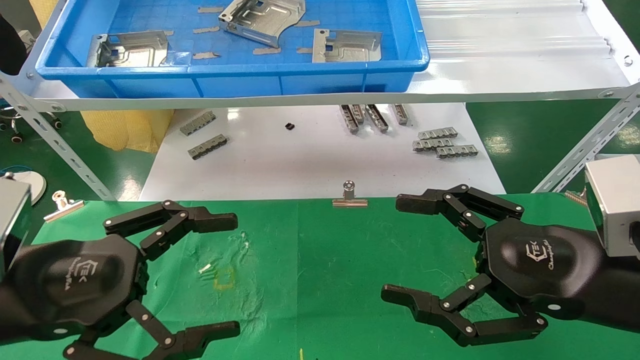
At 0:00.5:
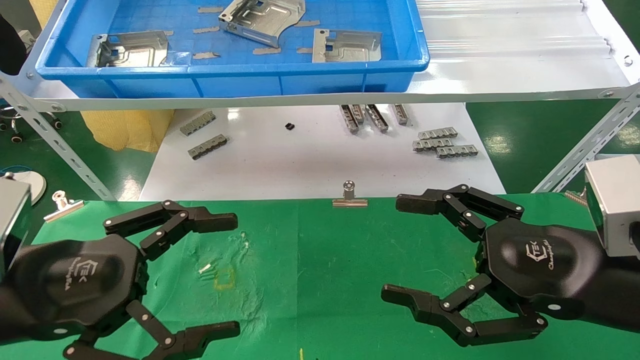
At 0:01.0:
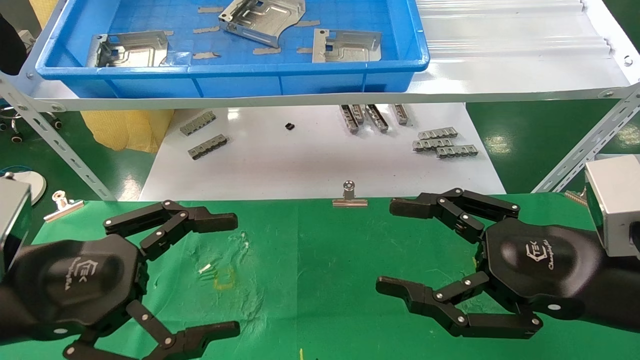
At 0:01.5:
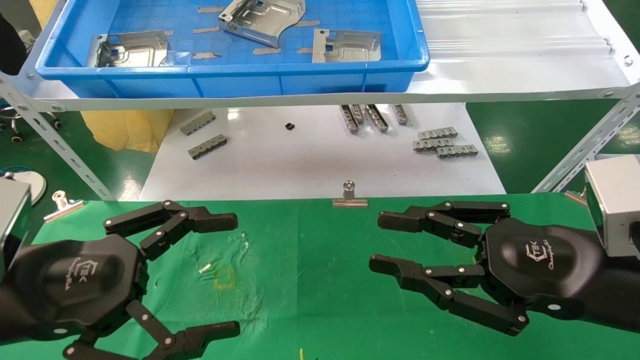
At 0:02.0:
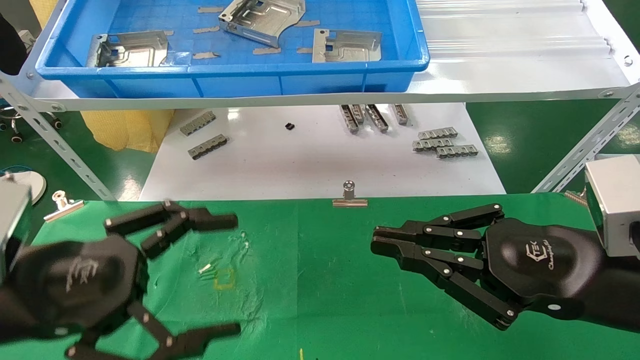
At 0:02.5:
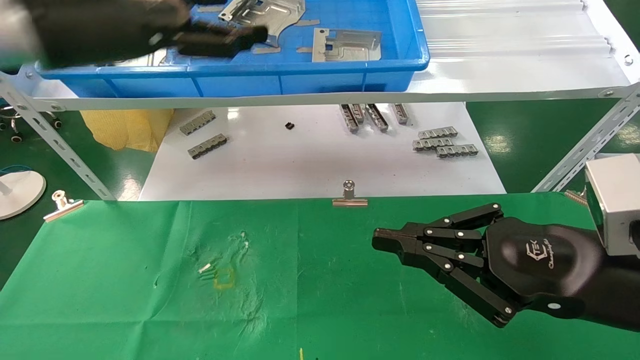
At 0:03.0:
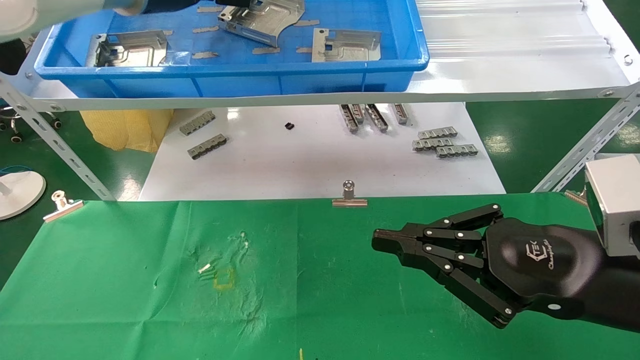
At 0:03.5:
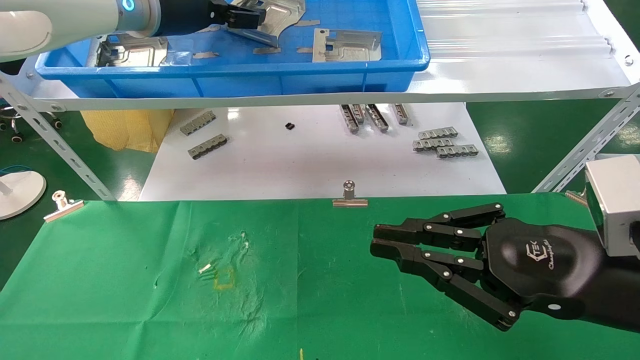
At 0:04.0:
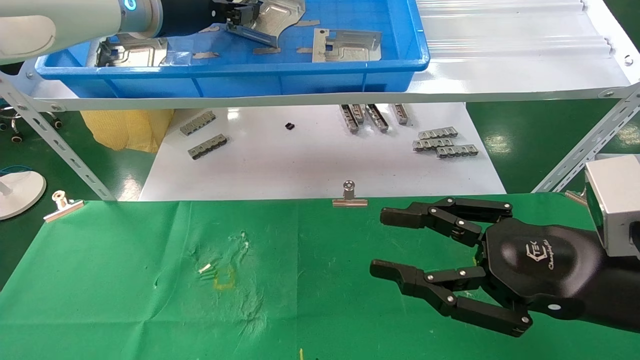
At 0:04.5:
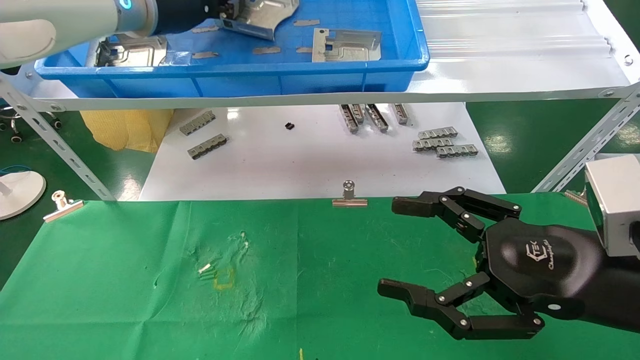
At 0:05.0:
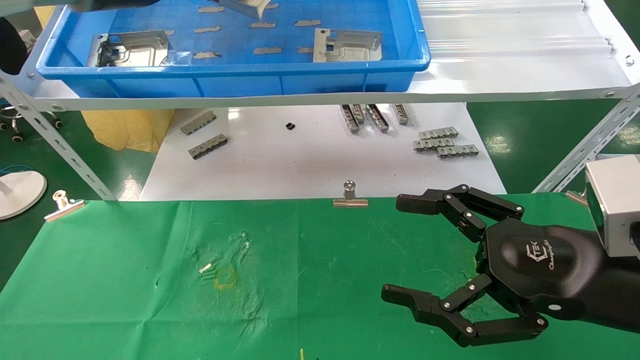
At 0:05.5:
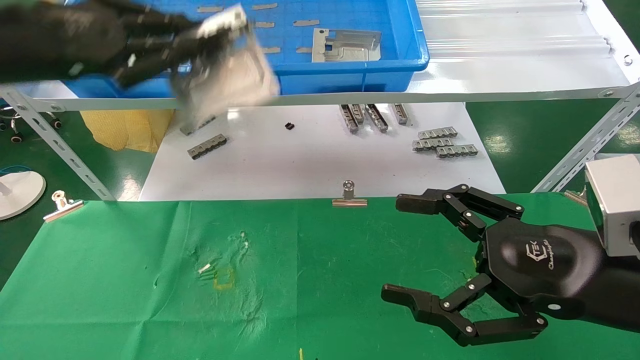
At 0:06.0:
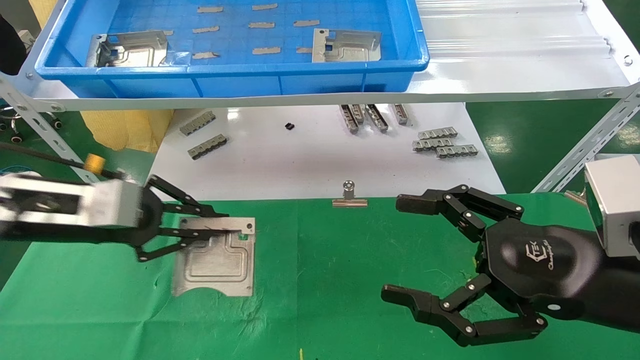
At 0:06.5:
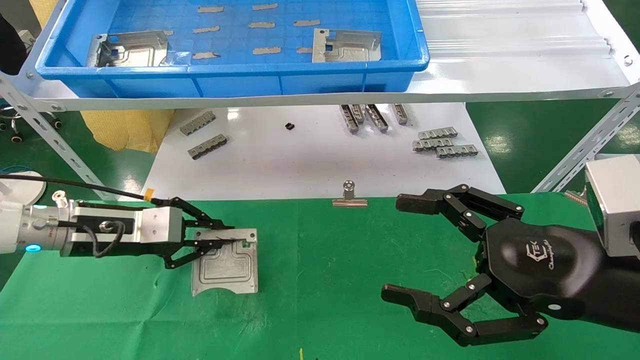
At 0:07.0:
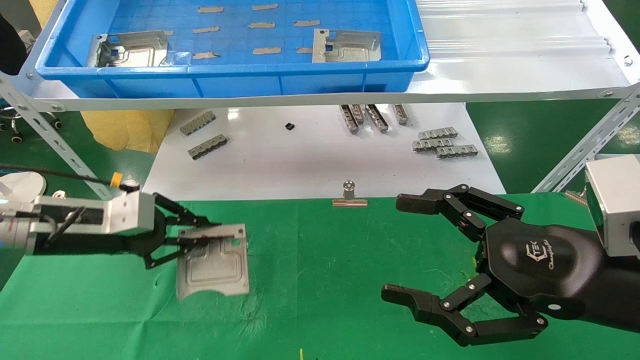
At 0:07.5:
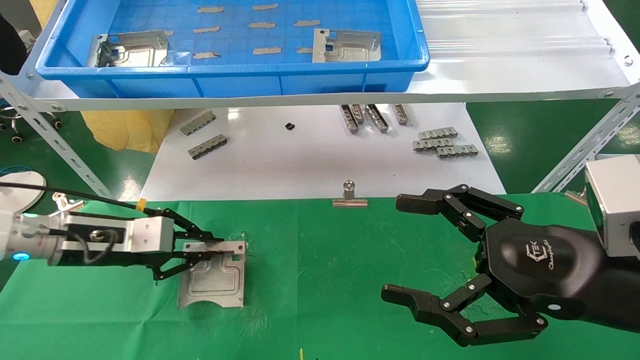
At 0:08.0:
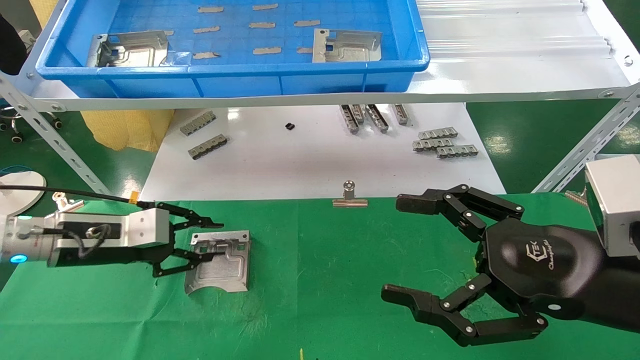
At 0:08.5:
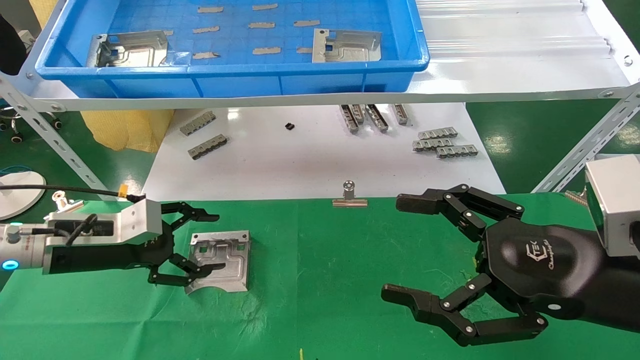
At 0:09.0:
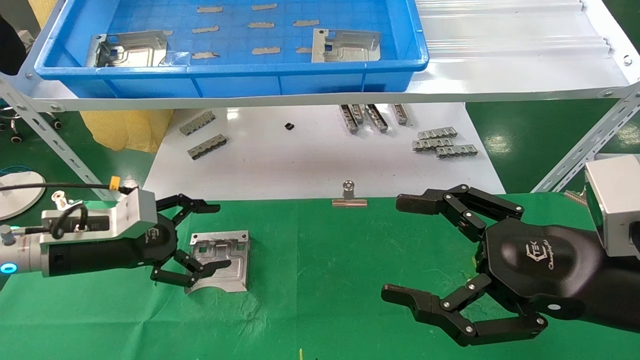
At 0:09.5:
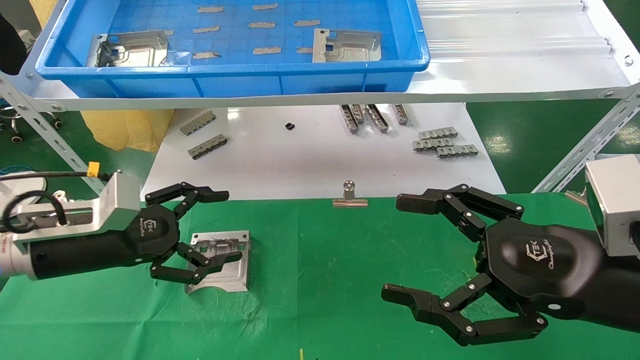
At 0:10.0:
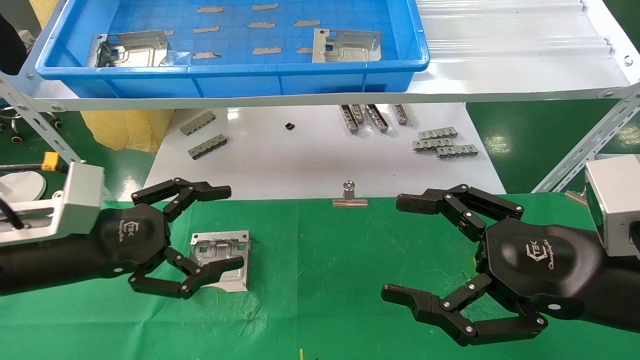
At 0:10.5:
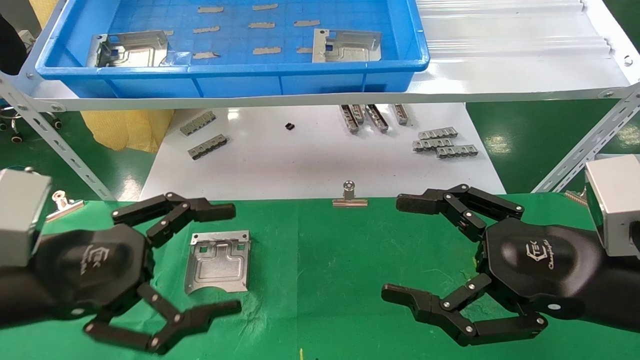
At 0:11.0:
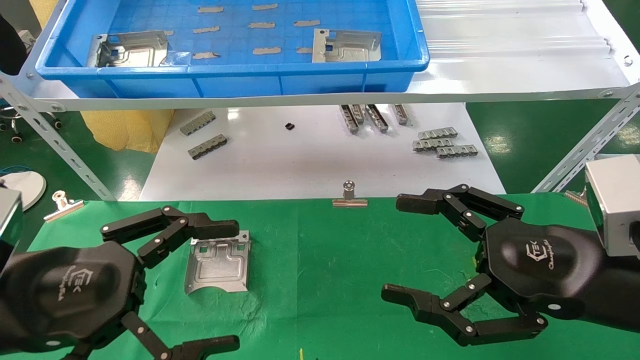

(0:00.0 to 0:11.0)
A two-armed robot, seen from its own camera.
Task of the whole recording: use the mechanical arm to pick up the parts and place them on the table.
Step, 0:02.5 - 0:04.0: Pick up the hard drive bracket from the feeding area.
Step, 0:04.5 - 0:08.0: Place the hard drive bracket into the box.
0:00.0 - 0:02.0: The right gripper closes.
0:02.0 - 0:03.5: The left gripper moves forward and upward, approximately 30 cm.
0:03.5 - 0:05.5: The right gripper opens, while the left gripper moves backward, to the left and downward, about 20 cm, and closes its fingers.
0:05.5 - 0:07.5: The left gripper moves downward, roughly 20 cm.
0:07.5 - 0:09.0: The left gripper opens up.
0:09.0 - 0:11.0: The left gripper is displaced backward by some 15 cm.

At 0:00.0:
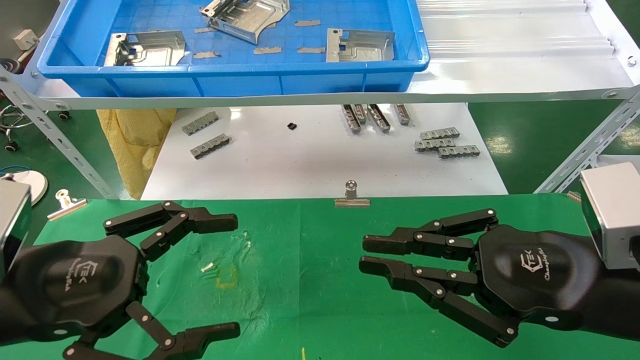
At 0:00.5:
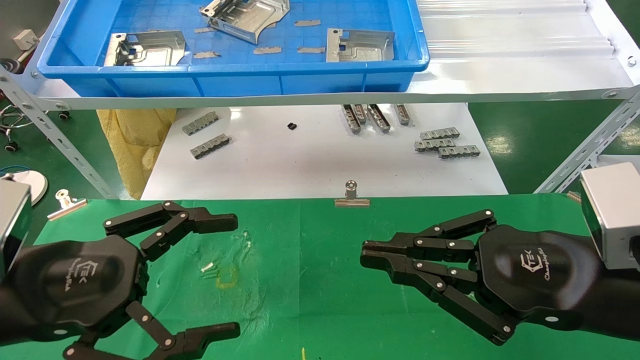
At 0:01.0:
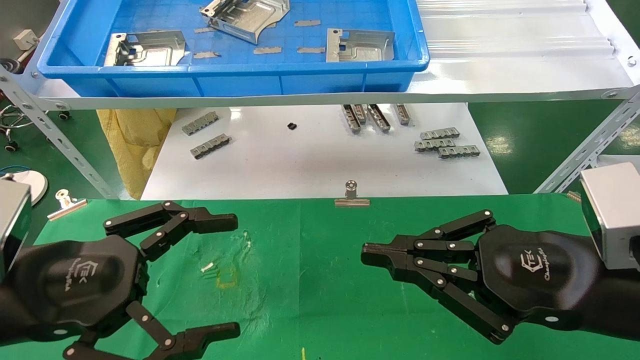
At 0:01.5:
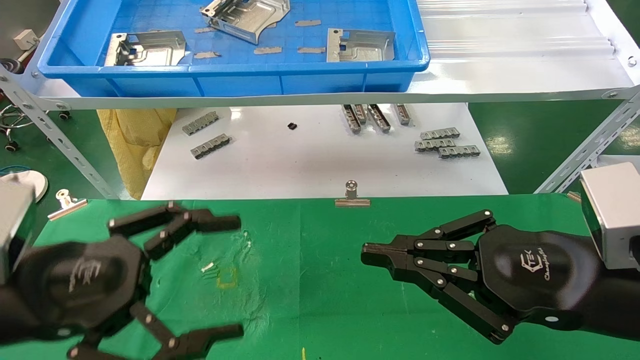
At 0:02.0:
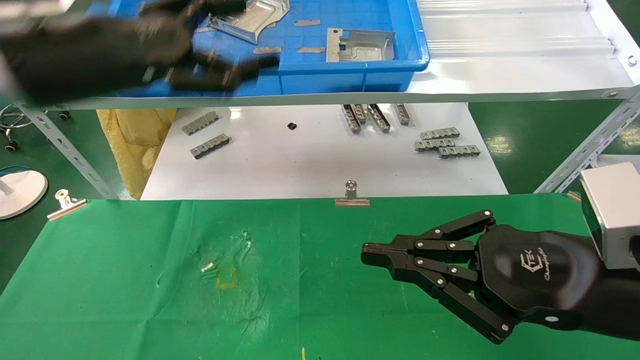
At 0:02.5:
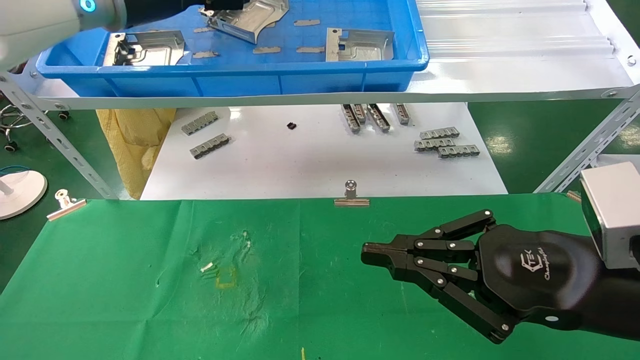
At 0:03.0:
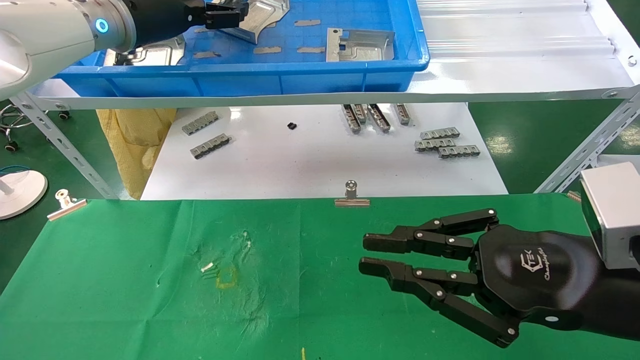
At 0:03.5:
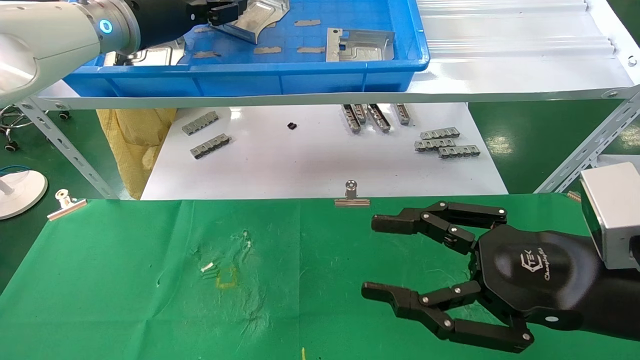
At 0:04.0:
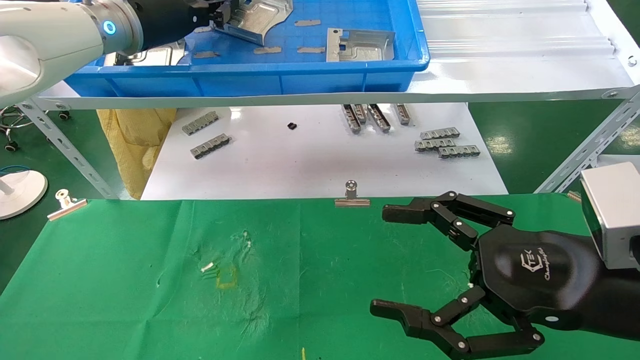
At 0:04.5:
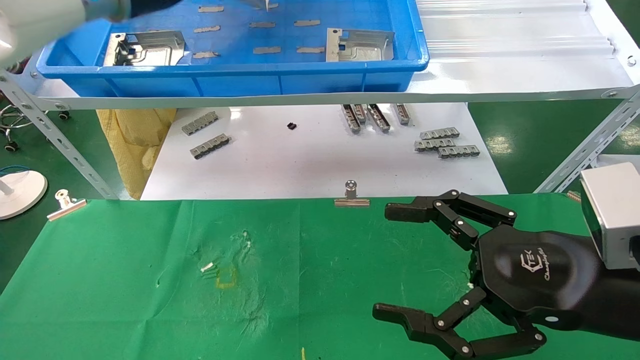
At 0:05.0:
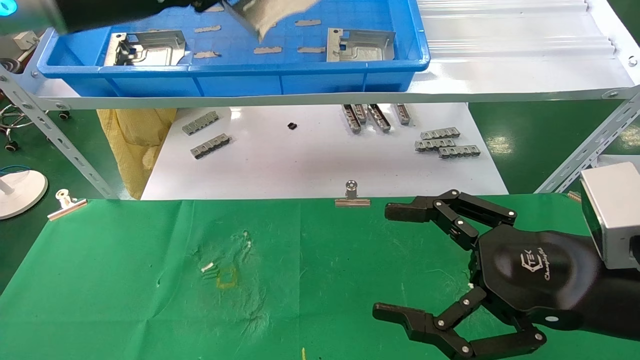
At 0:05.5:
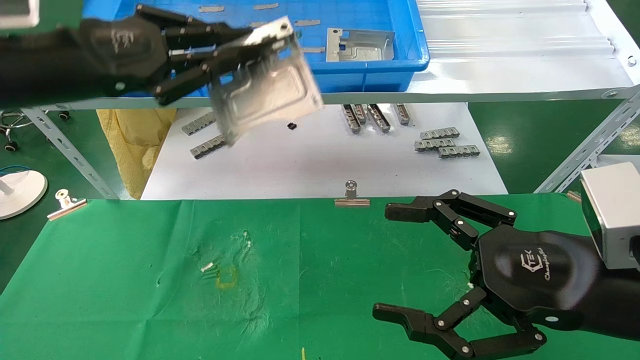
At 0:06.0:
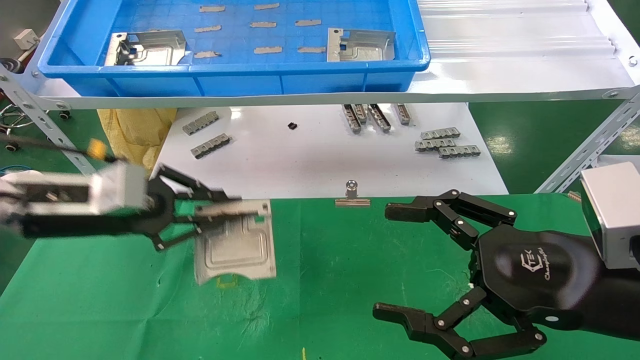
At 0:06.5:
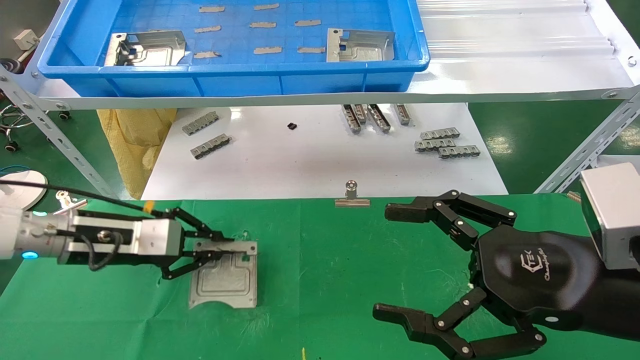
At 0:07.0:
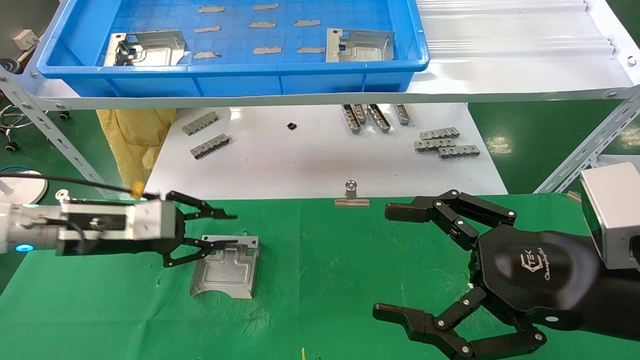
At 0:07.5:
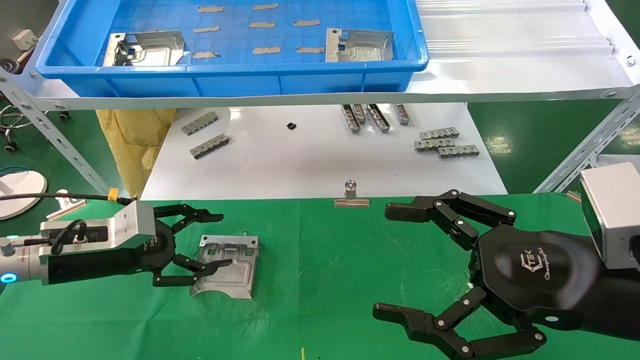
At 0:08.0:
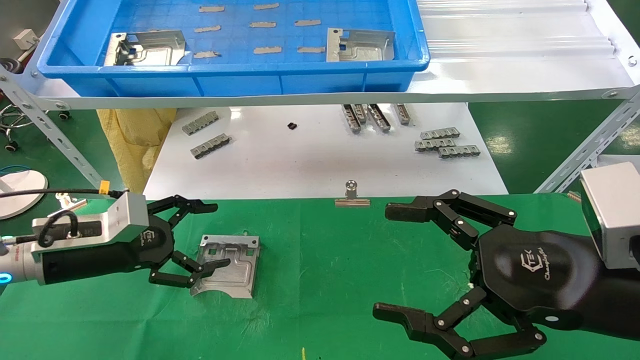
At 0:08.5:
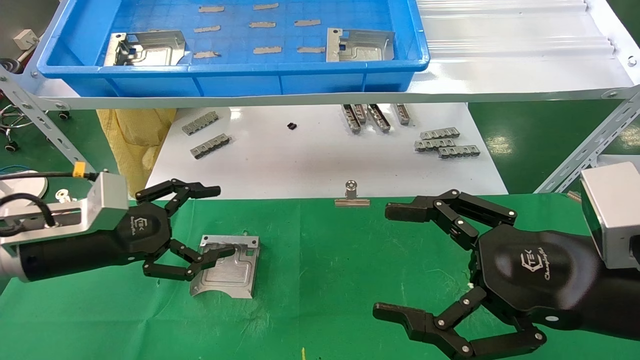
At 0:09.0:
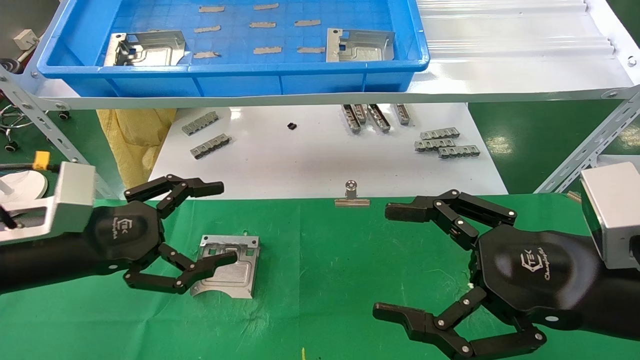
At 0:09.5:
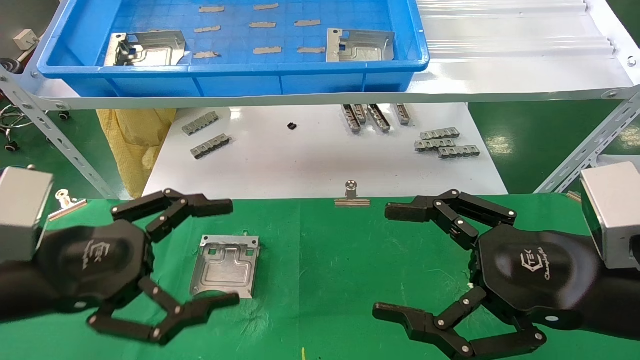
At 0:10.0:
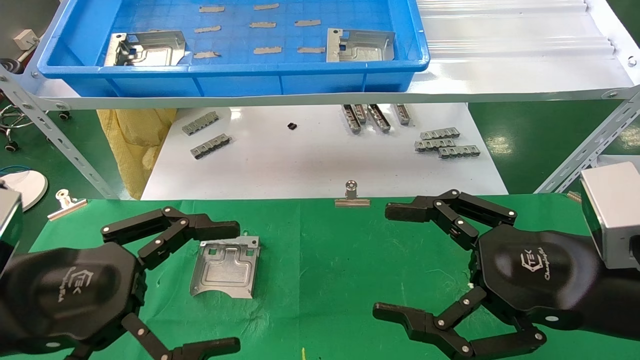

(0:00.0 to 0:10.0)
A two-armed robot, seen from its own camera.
Task of the whole recording: use the mechanical arm to pick up the parts and place them on the table.
Step, 0:02.0 - 0:04.0: Pick up the hard drive bracket from the feeding area.
Step, 0:04.5 - 0:06.5: Place the hard drive bracket into the box.
0:00.0 - 0:02.0: The left gripper heads upward and forward, covering roughly 20 cm.
0:02.0 - 0:04.0: The right gripper opens; the left gripper moves forward, some 15 cm, and closes its fingers.
0:04.0 - 0:06.0: The left gripper heads downward and backward, covering roughly 25 cm.
0:06.0 - 0:08.0: The left gripper shifts some 5 cm downward, and opens its fingers.
0:08.0 - 0:10.0: The left gripper moves backward, about 15 cm.
